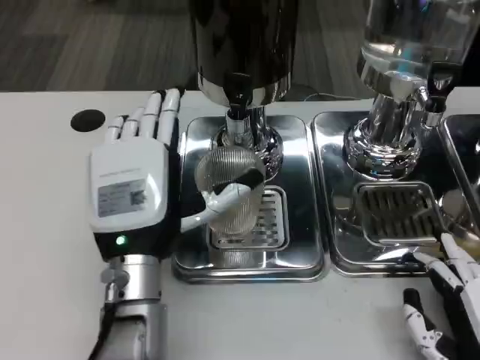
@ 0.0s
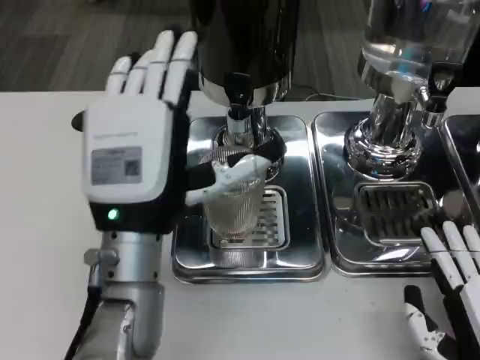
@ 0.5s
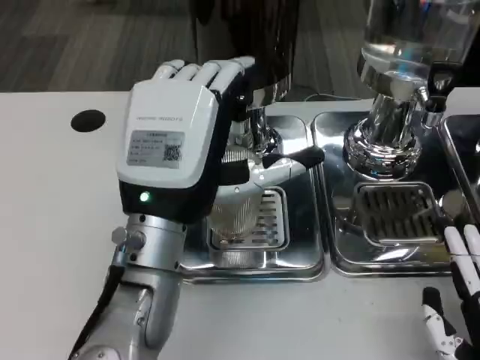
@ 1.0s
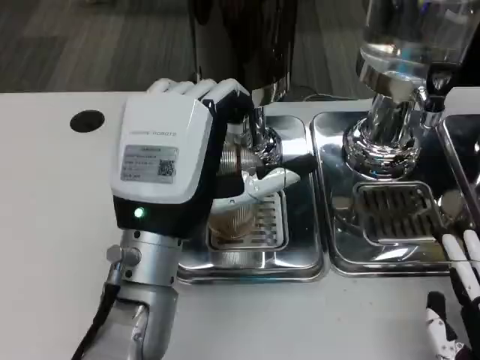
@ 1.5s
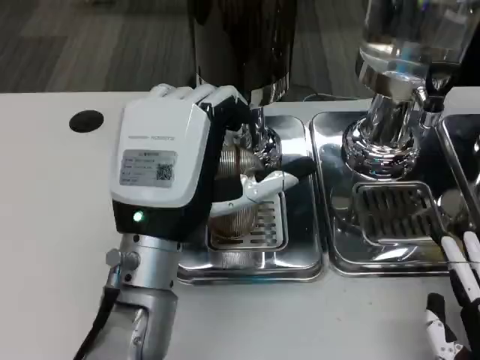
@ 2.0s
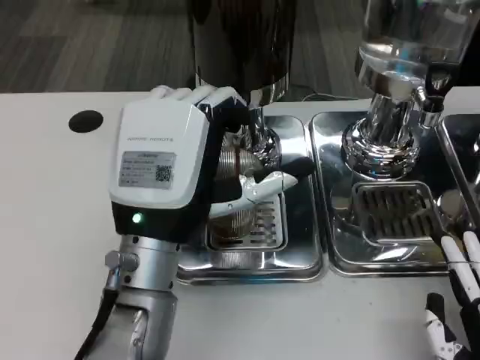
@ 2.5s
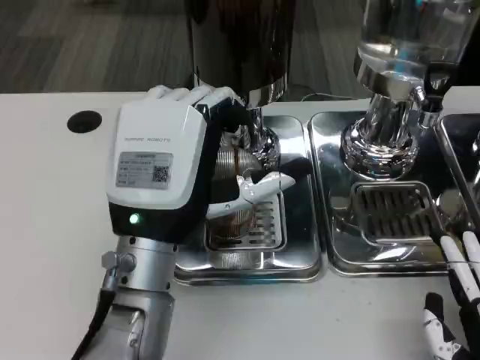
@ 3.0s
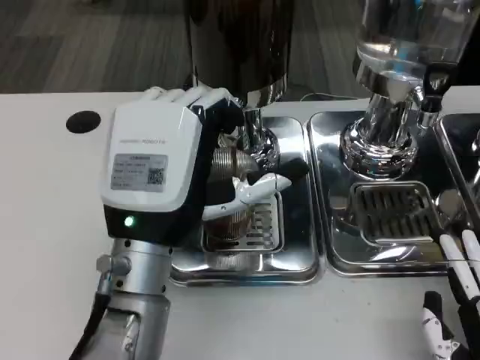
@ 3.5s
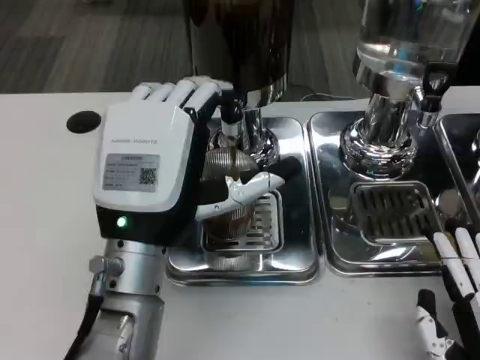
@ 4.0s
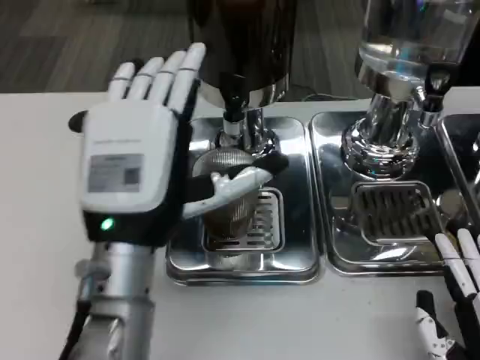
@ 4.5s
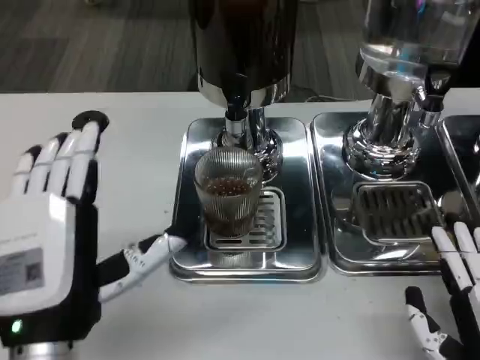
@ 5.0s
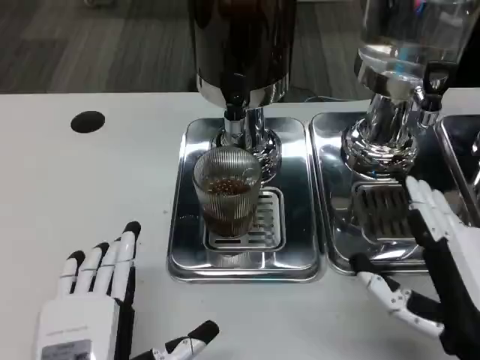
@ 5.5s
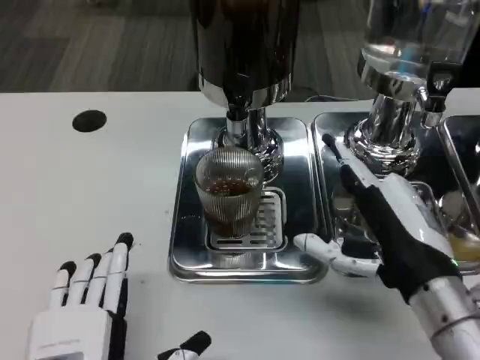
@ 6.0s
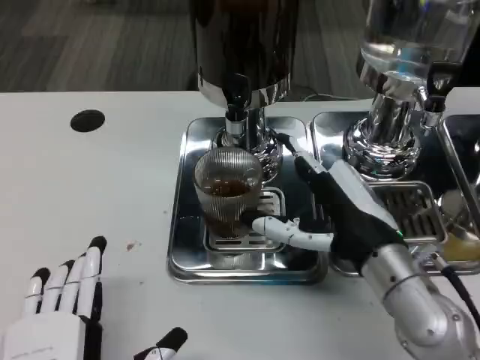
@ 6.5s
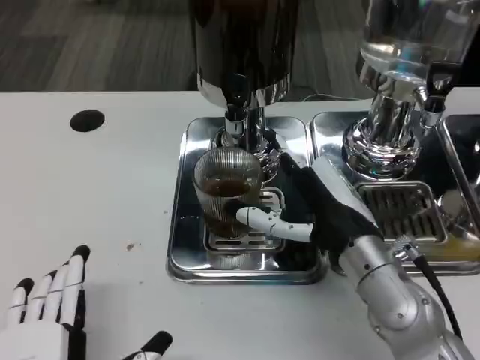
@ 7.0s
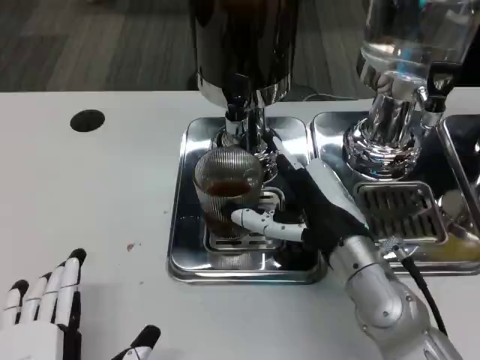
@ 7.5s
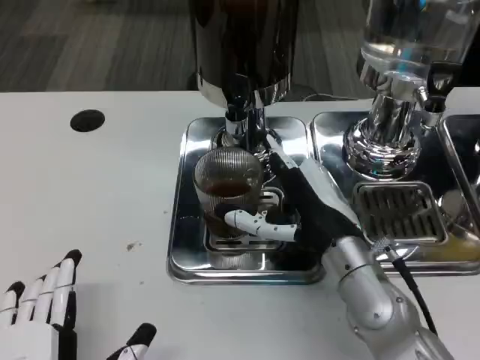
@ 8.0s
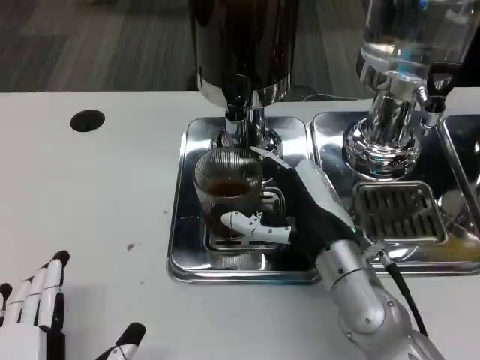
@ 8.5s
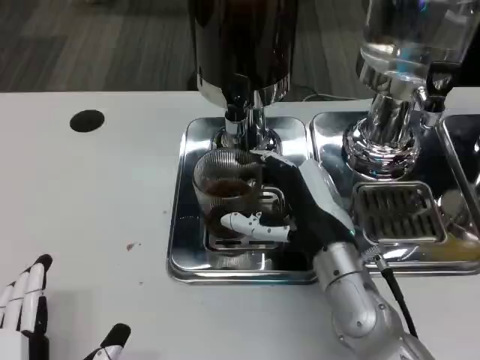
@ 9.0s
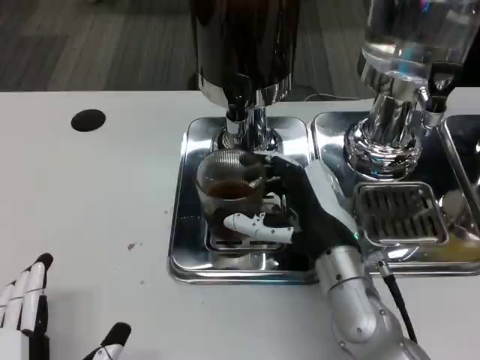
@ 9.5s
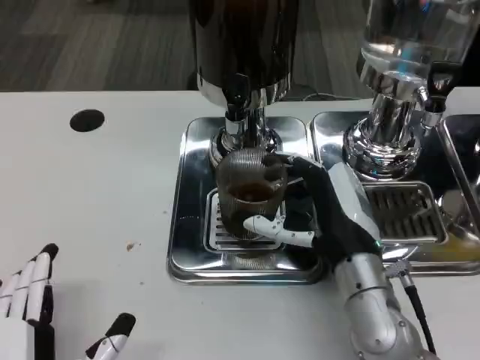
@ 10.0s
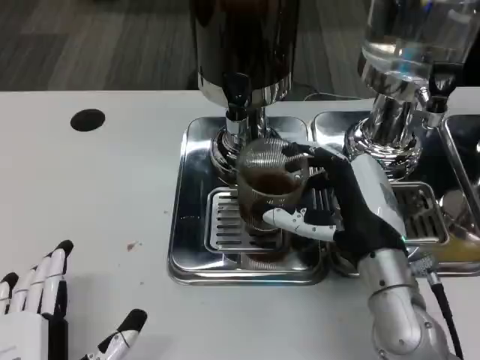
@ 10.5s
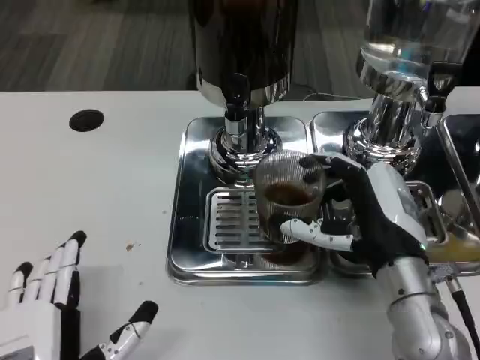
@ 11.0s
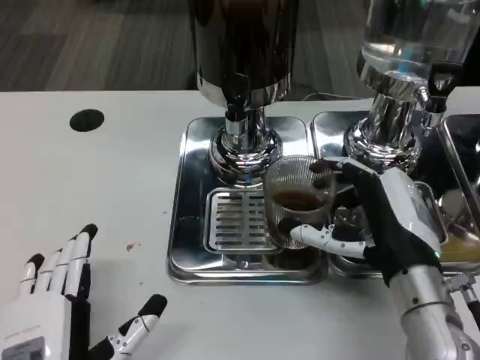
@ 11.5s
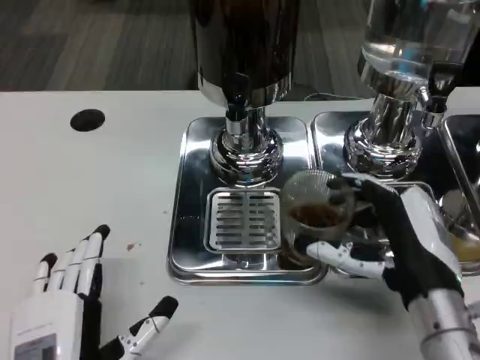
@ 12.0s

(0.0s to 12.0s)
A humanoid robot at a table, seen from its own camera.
Task of the whole recording: Grasp the cup under the faucet to collect the drink, then remove the cup.
0.0s - 2.0s: The left hand ends up approximately 5 cm from where it was.
4.0s - 6.0s: The right hand goes approximately 15 cm forward, upward and to the left. The left hand moves backward and downward, some 15 cm.
6.0s - 8.0s: The right hand travels to the left and forward by about 10 cm.
8.0s - 10.0s: The hands move only a little.
10.0s - 12.0s: The right hand heads to the right and backward, covering roughly 10 cm.

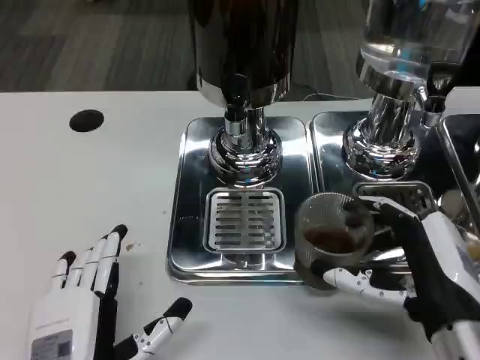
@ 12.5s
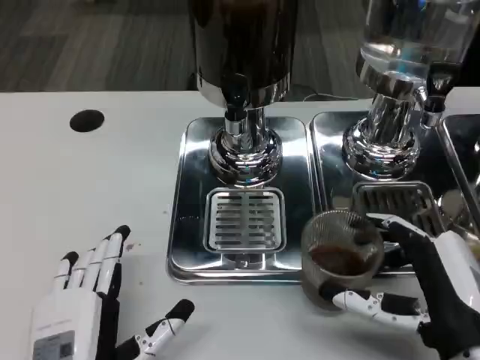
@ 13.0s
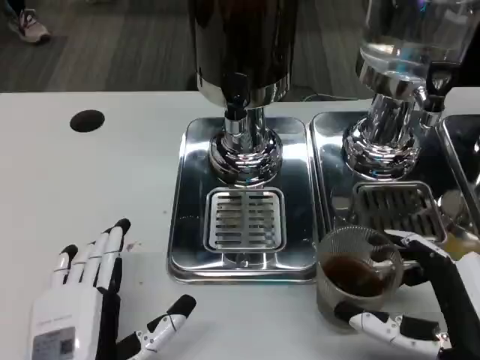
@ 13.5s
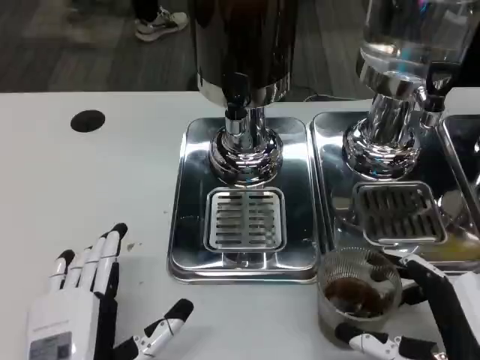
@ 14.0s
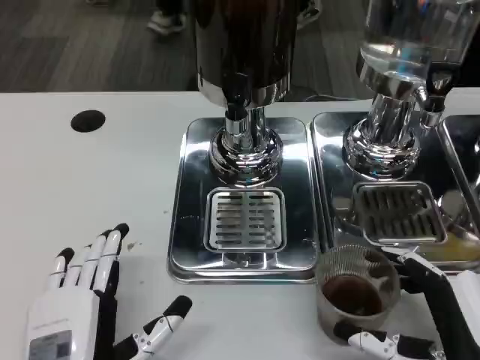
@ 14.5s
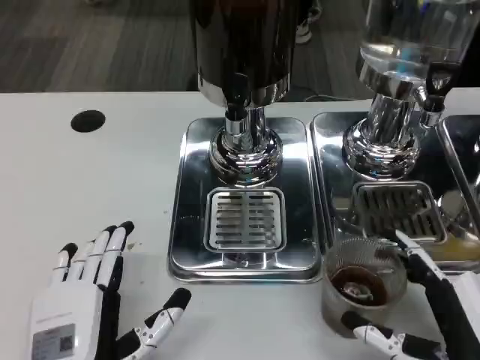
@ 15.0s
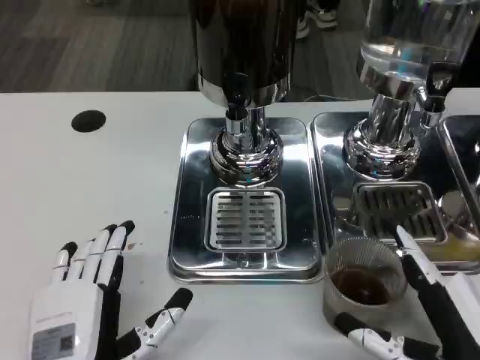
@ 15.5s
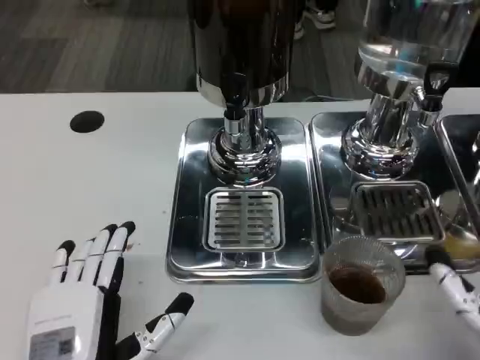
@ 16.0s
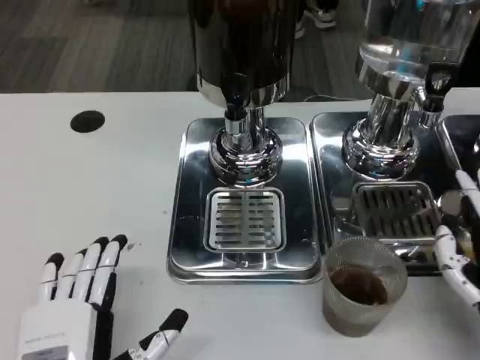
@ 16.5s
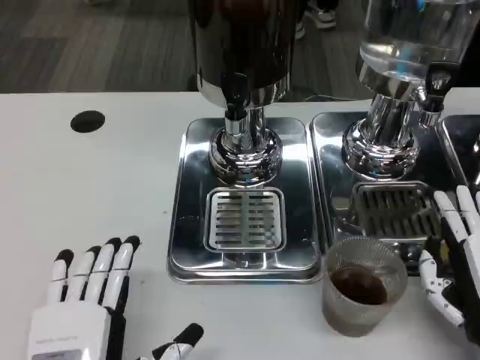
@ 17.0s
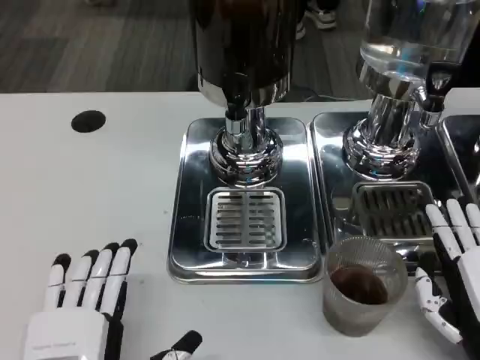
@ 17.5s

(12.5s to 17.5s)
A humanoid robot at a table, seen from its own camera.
Task of the whole recording: Grasp the cup under the faucet to collect the drink, then remove the cup.
12.5s - 15.0s: The right hand heads backward, covering some 5 cm.
15.0s - 17.5s: The right hand moves about 5 cm.

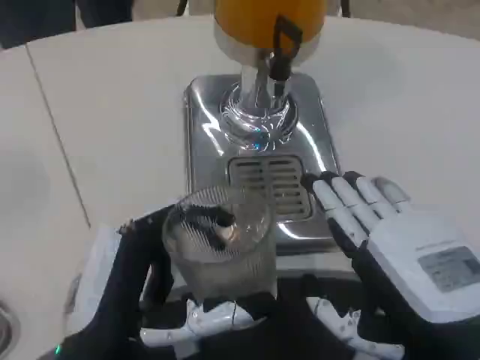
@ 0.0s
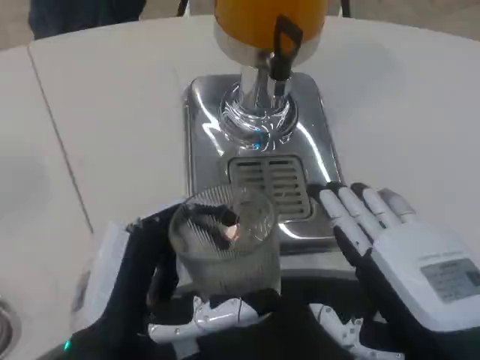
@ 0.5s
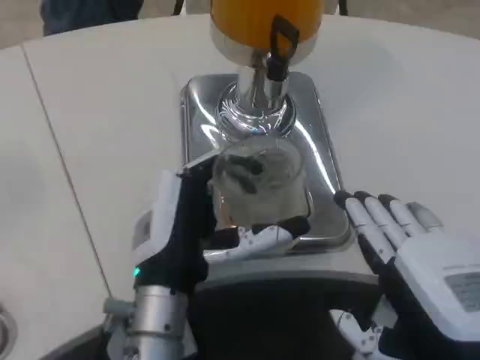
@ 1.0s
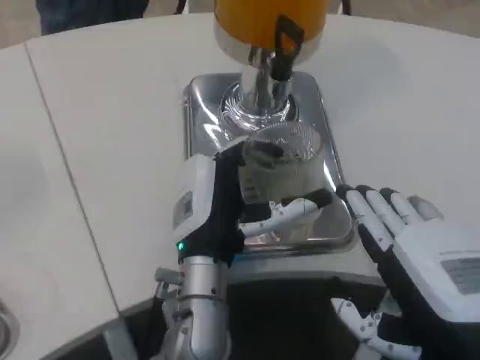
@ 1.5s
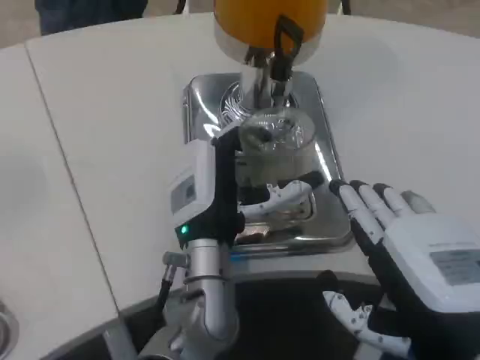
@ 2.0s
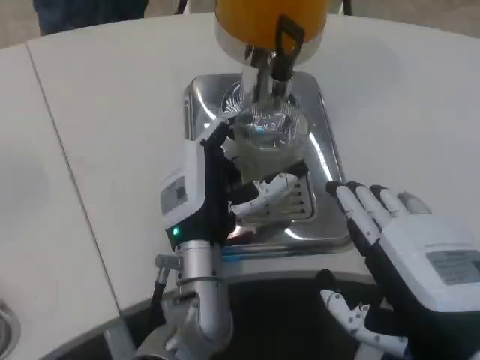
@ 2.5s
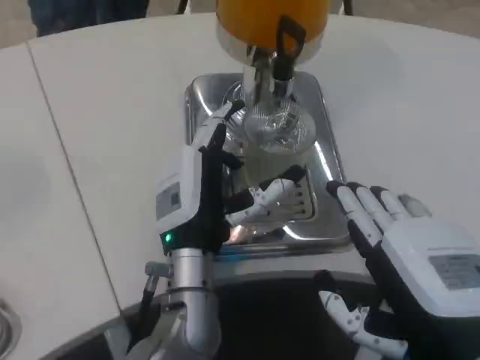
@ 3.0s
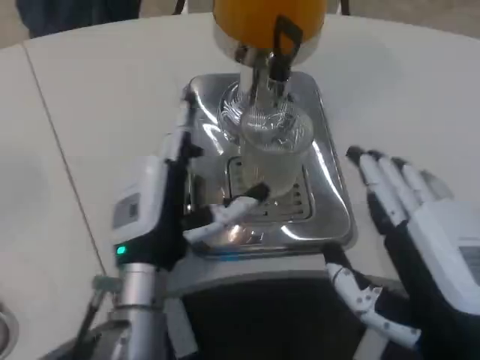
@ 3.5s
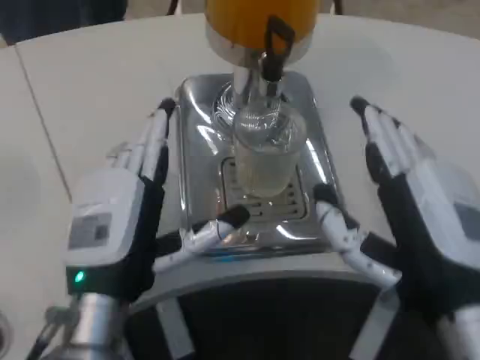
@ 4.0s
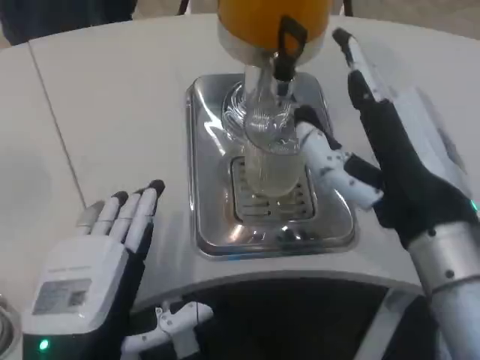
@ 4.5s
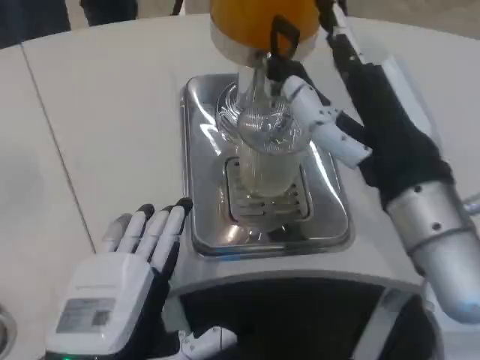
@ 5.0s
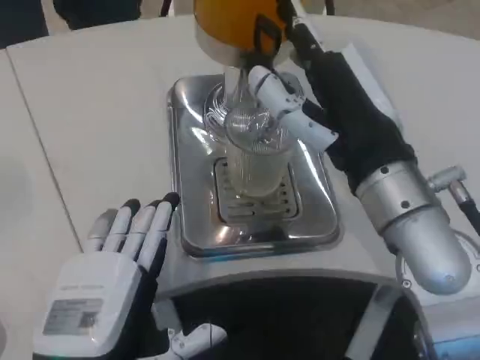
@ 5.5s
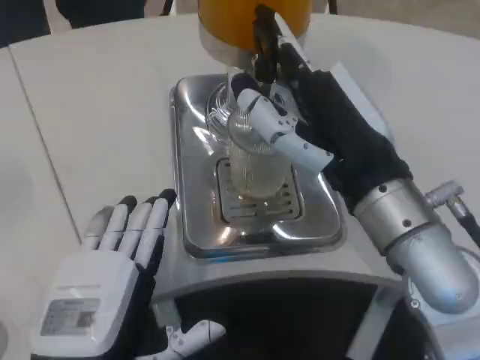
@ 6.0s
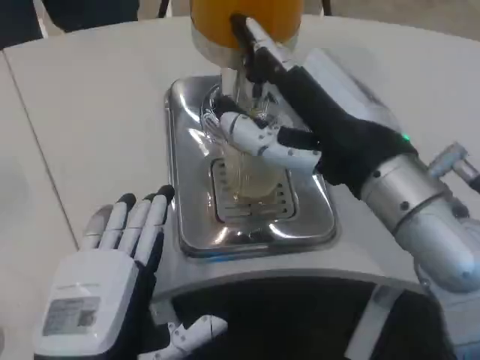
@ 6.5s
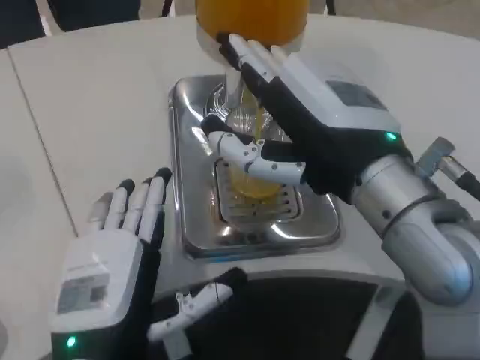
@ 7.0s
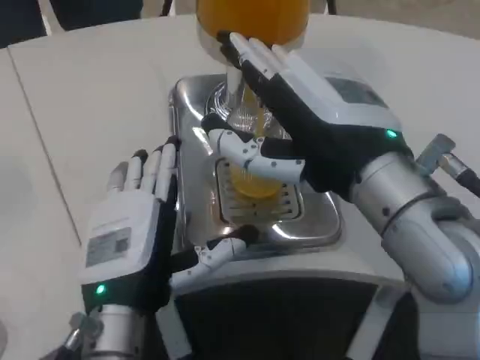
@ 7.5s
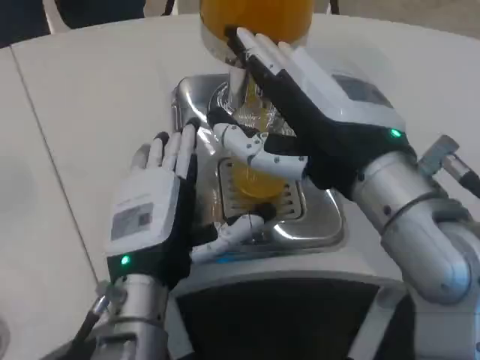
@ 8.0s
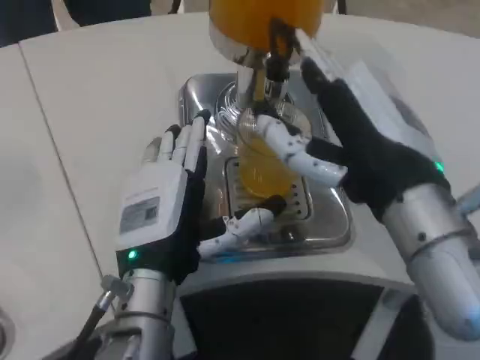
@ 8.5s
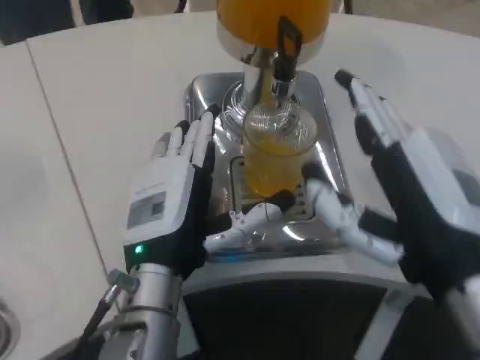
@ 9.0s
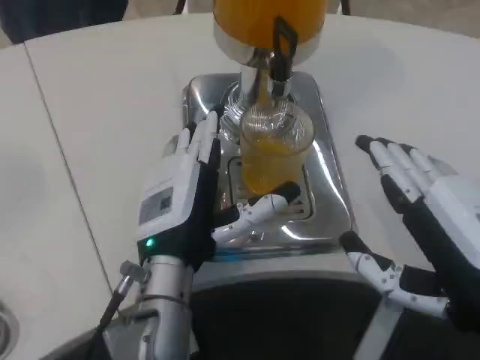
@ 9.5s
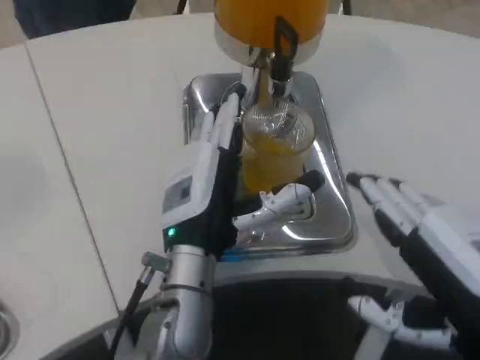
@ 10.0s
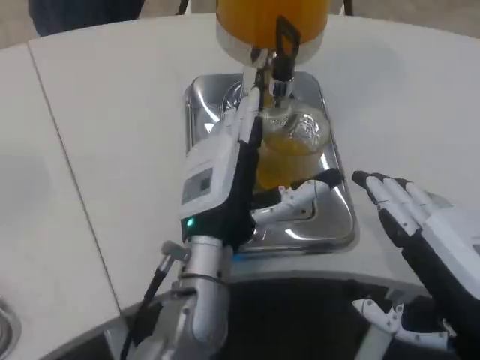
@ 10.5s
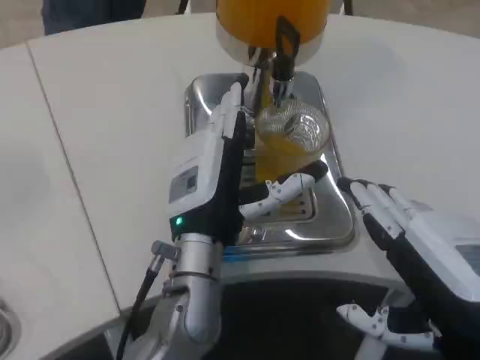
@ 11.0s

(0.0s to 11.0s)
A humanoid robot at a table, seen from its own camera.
Task of the whole recording: Grasp the cup under the faucet to collect the drink, then remove the cup.
0.0s - 2.0s: The left hand travels forward and to the right by about 20 cm.
2.0s - 3.5s: The left hand is displaced to the left by some 5 cm.
3.5s - 5.5s: The left hand shifts some 15 cm backward; the right hand moves forward and upward, about 15 cm.
5.5s - 7.5s: The left hand goes some 5 cm forward.
7.5s - 9.0s: The right hand heads downward and backward, covering approximately 10 cm.
9.0s - 11.0s: The left hand shifts by some 5 cm.
